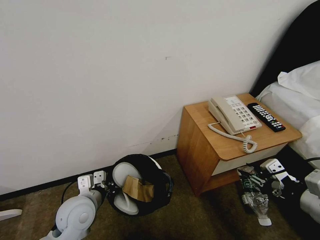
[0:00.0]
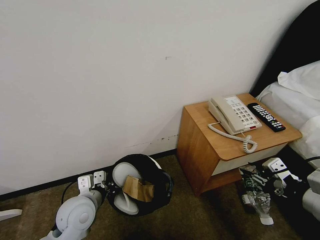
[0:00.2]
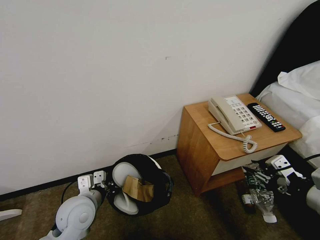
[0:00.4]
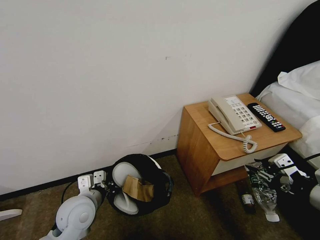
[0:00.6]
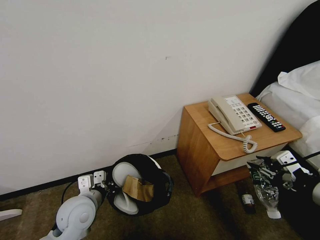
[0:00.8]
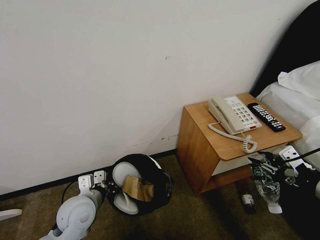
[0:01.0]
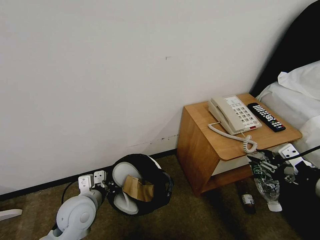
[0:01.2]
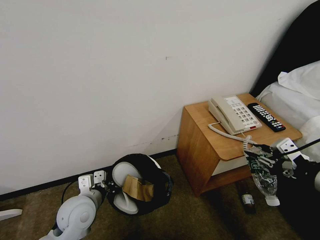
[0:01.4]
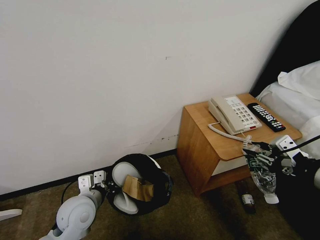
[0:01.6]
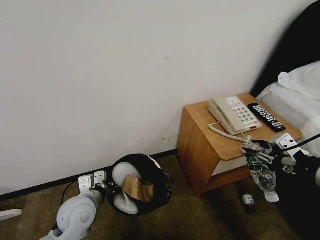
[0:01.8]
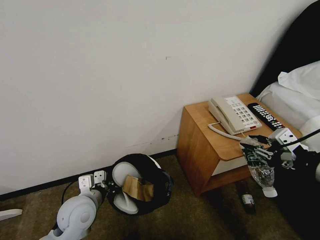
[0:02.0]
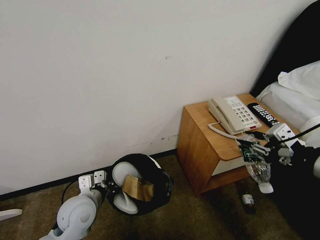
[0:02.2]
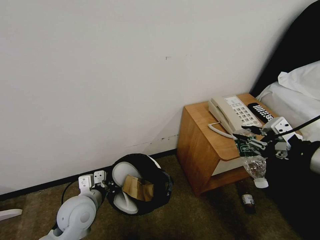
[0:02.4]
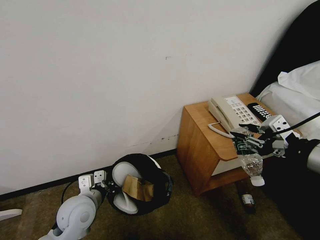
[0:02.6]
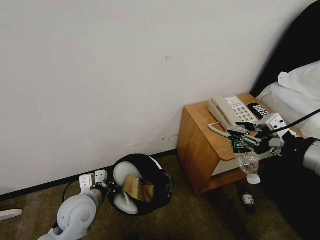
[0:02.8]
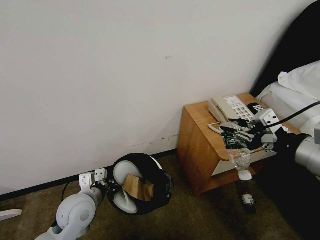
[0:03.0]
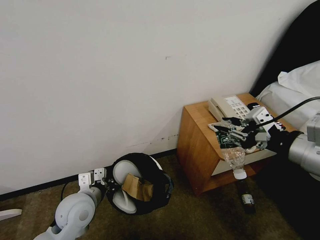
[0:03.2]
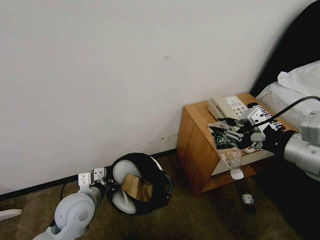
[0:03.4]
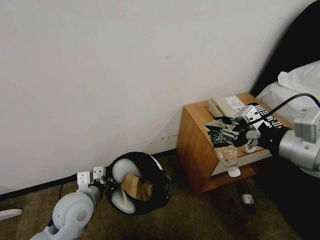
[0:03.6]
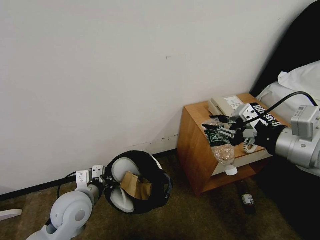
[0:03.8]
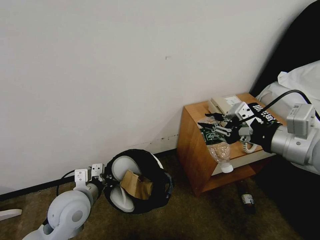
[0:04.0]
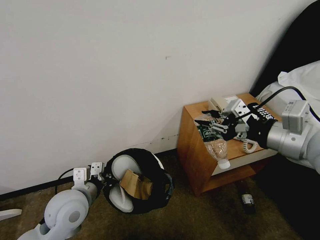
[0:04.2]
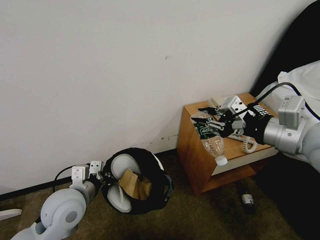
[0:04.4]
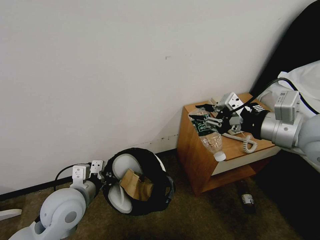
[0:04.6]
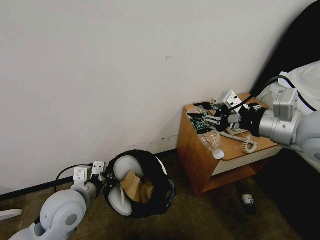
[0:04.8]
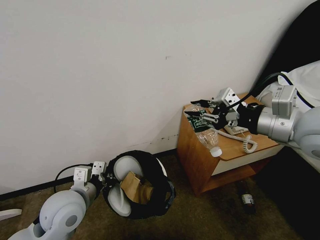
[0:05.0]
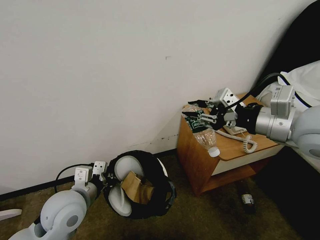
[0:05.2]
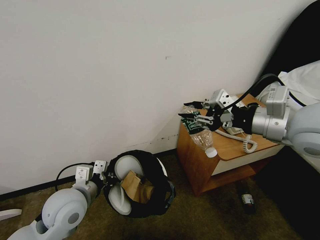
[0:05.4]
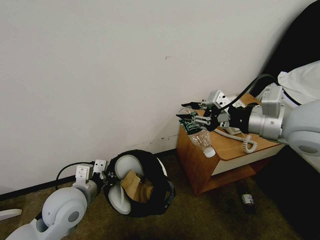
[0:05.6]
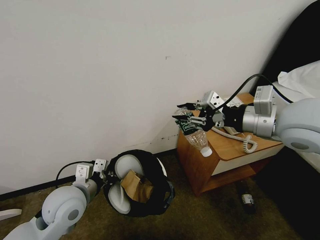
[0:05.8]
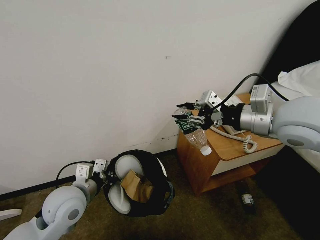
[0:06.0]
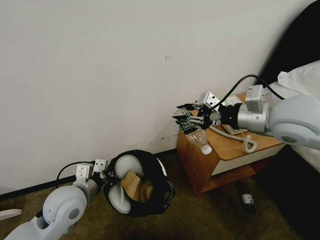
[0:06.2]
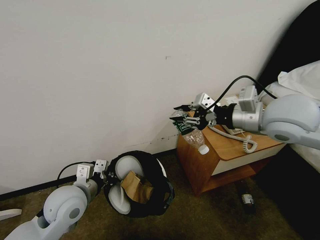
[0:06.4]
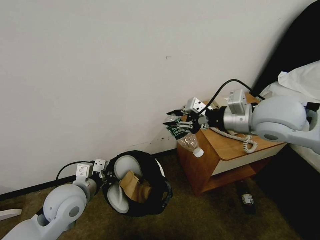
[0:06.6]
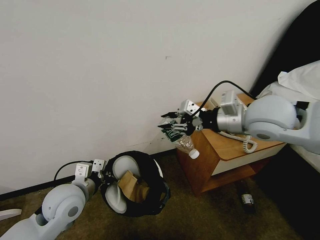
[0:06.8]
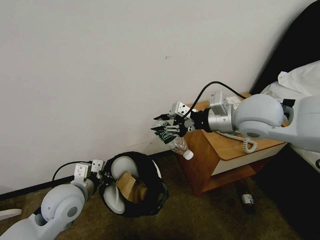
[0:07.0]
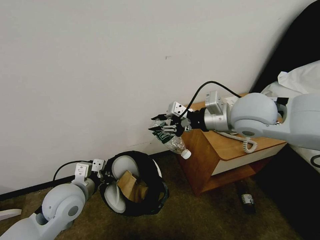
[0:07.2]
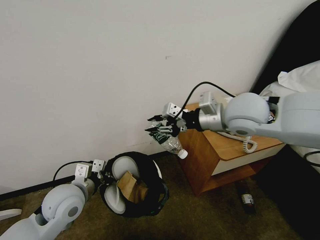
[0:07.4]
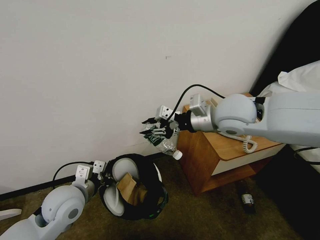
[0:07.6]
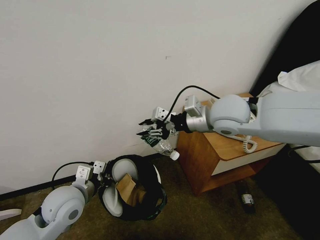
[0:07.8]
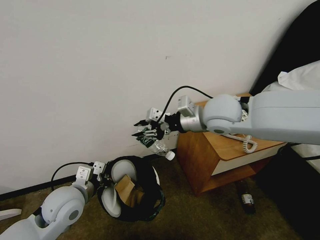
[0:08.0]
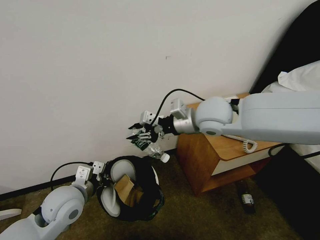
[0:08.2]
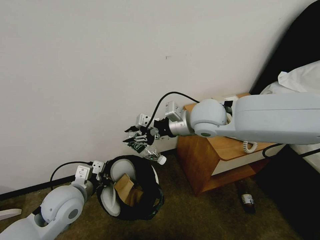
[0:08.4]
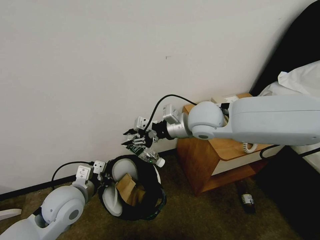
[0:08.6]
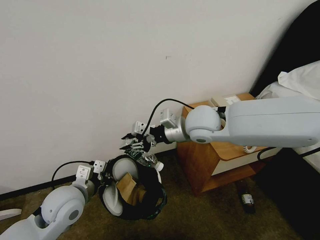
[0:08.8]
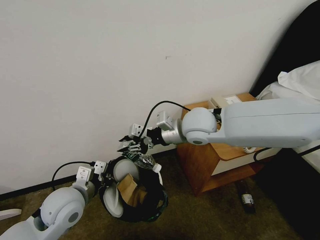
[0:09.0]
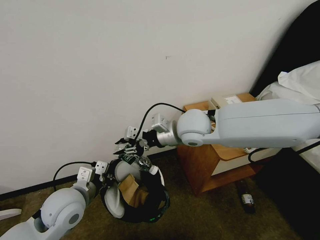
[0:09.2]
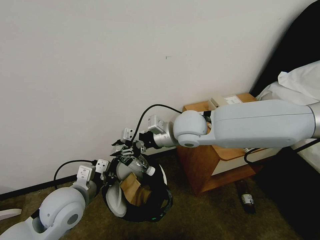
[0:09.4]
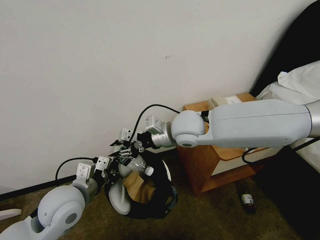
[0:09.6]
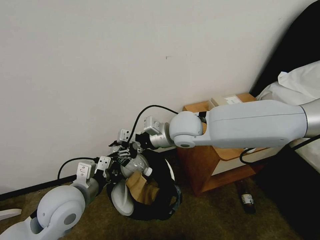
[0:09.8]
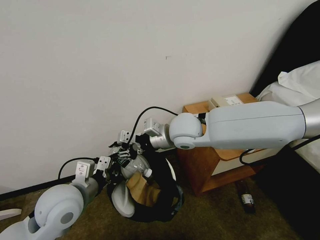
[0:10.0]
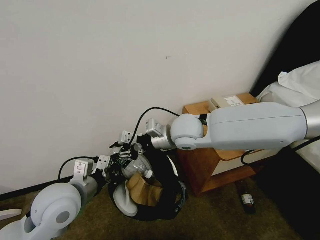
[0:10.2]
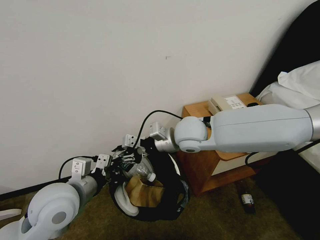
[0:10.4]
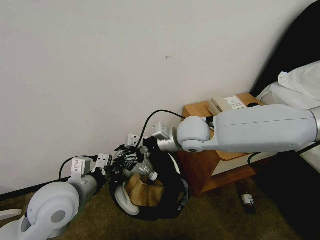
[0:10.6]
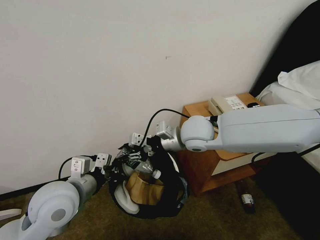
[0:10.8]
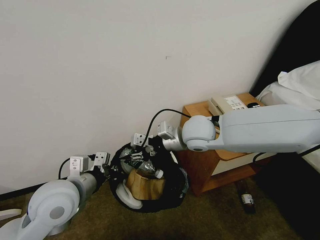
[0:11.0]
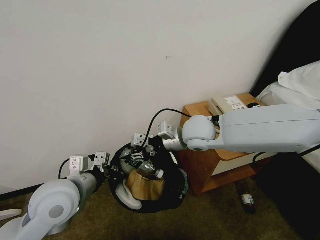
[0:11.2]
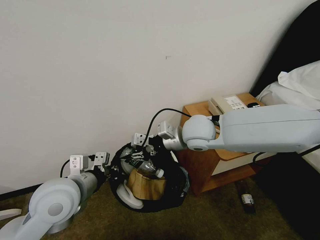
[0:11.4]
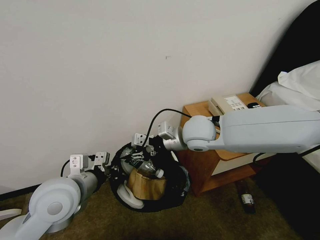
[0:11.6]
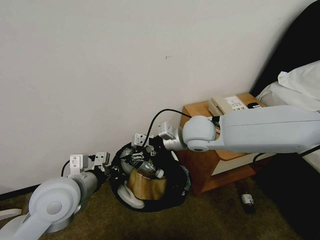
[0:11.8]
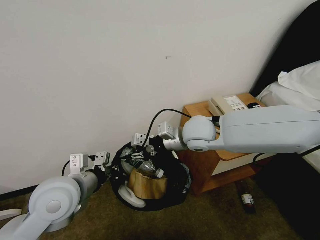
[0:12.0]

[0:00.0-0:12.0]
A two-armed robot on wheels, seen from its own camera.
Task of the whole recording: Pick up the trash bin, then pick up the garbage from the floor and place it into the trash bin.
0:00.0 to 0:01.6: The right gripper moves upward, some 5 cm.
0:01.6 to 0:03.0: The right gripper moves approximately 5 cm.
0:03.0 to 0:04.4: The left gripper shifts some 5 cm upward, while the right gripper shifts some 5 cm forward.
0:04.4 to 0:06.0: The right gripper travels forward by approximately 5 cm.
0:06.0 to 0:07.6: The right gripper heads to the left and forward, covering some 10 cm.
0:07.6 to 0:09.0: The right gripper shifts some 10 cm to the left.
0:09.0 to 0:10.4: The left gripper goes approximately 5 cm upward.
0:10.4 to 0:12.0: There are only small adjustments of the grippers.

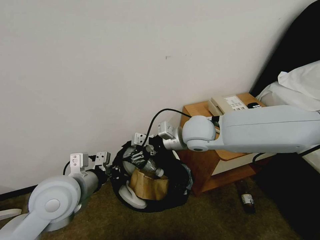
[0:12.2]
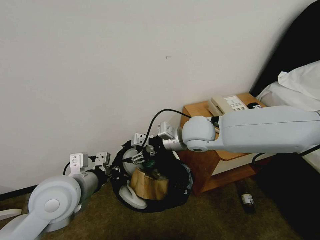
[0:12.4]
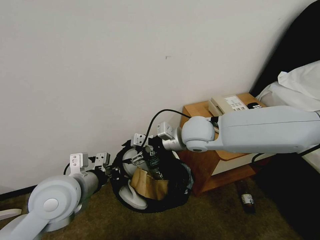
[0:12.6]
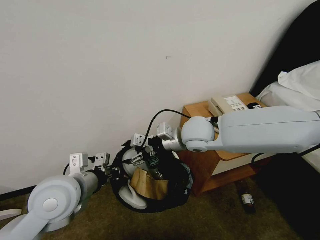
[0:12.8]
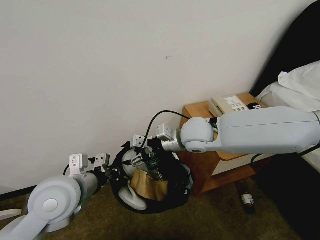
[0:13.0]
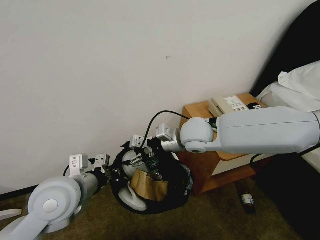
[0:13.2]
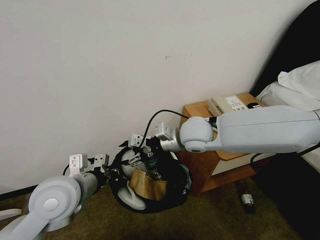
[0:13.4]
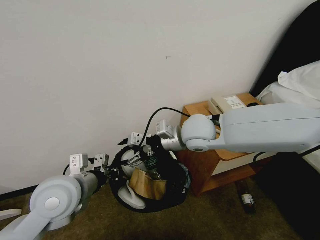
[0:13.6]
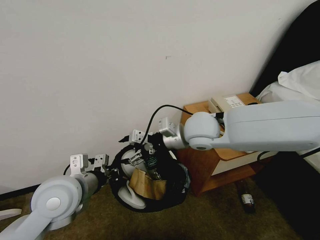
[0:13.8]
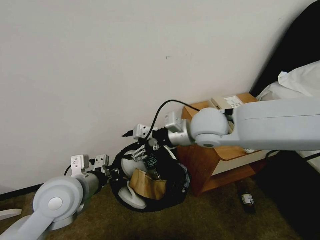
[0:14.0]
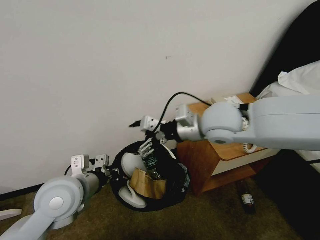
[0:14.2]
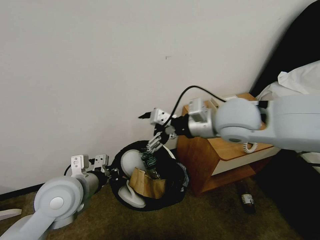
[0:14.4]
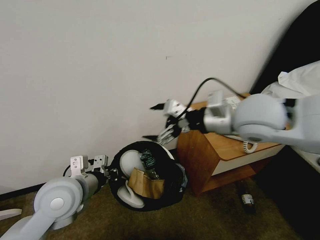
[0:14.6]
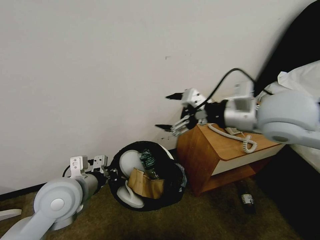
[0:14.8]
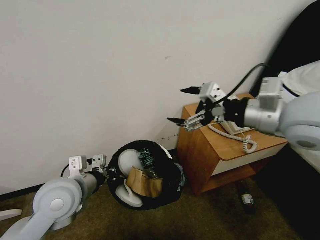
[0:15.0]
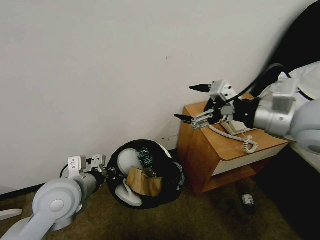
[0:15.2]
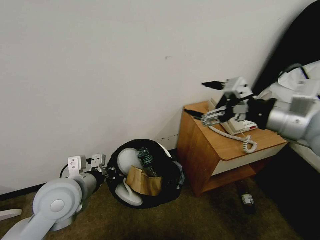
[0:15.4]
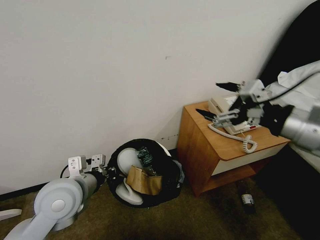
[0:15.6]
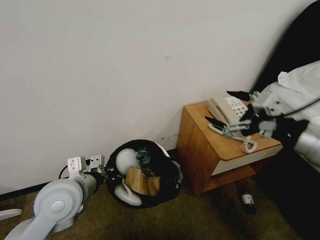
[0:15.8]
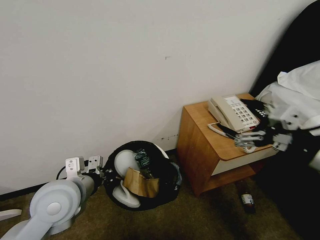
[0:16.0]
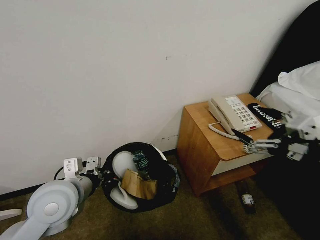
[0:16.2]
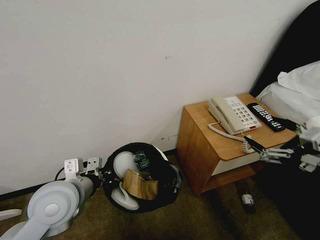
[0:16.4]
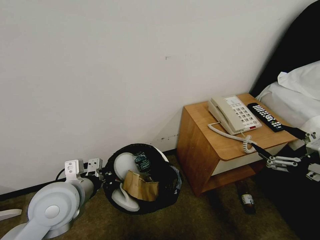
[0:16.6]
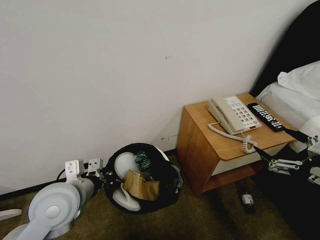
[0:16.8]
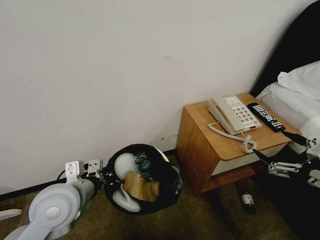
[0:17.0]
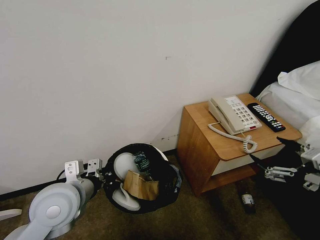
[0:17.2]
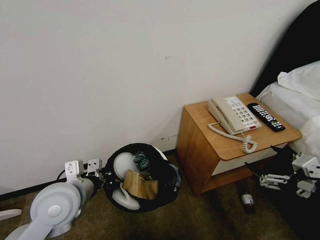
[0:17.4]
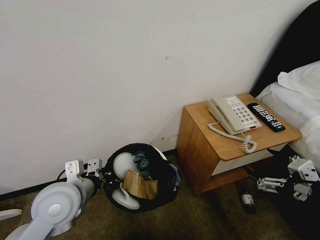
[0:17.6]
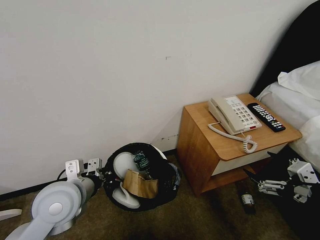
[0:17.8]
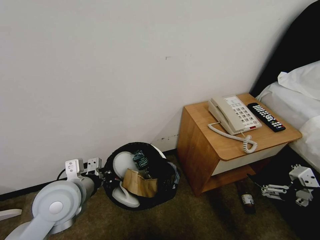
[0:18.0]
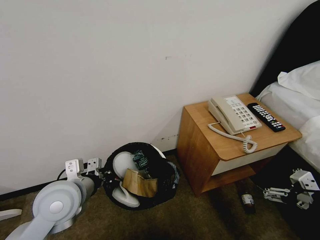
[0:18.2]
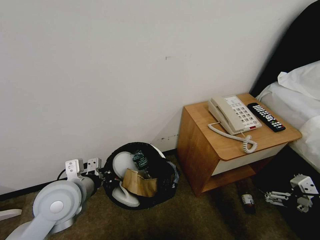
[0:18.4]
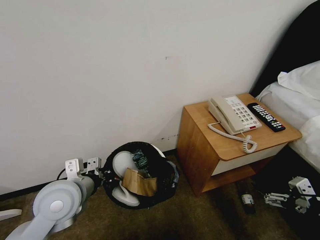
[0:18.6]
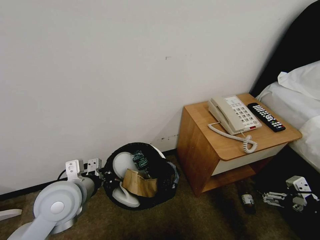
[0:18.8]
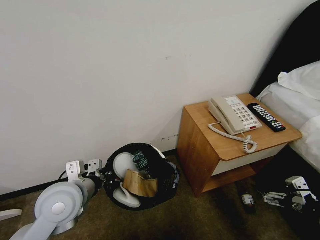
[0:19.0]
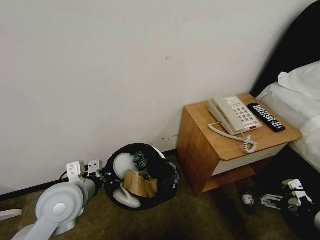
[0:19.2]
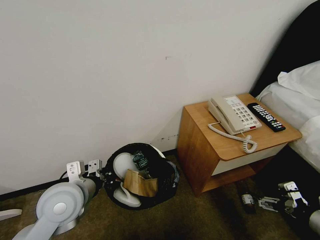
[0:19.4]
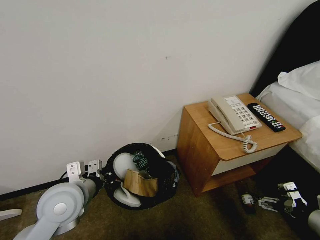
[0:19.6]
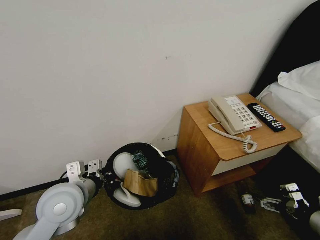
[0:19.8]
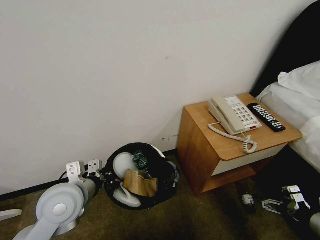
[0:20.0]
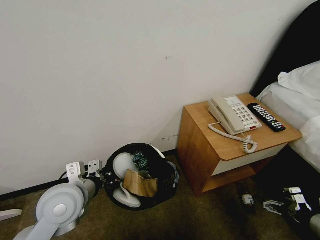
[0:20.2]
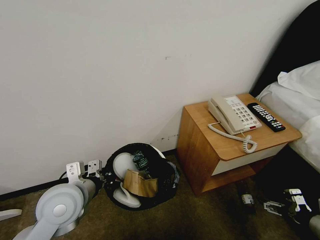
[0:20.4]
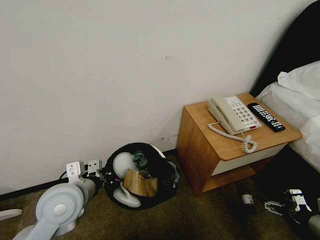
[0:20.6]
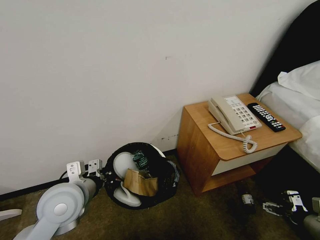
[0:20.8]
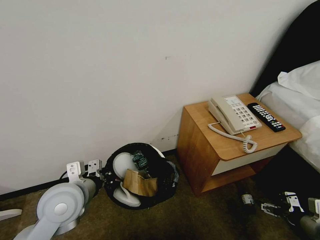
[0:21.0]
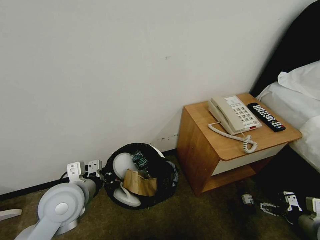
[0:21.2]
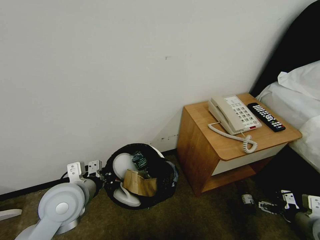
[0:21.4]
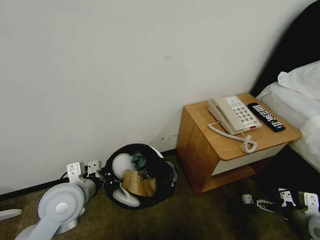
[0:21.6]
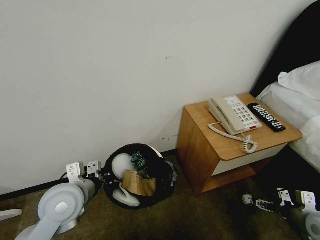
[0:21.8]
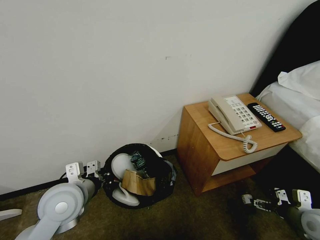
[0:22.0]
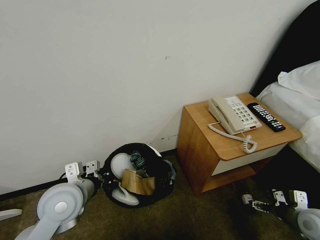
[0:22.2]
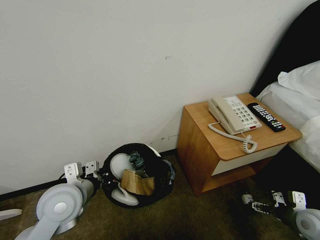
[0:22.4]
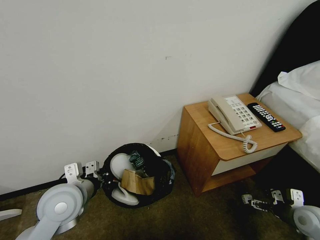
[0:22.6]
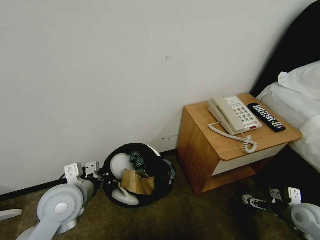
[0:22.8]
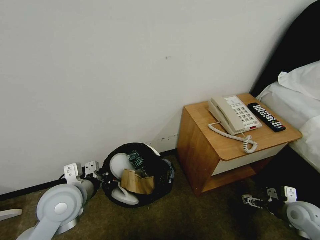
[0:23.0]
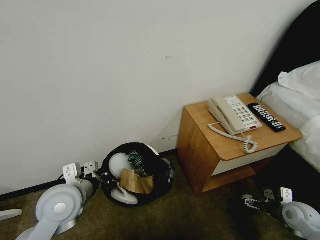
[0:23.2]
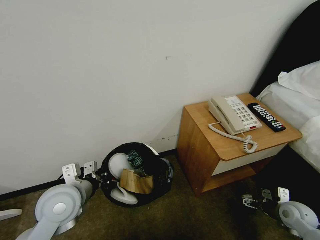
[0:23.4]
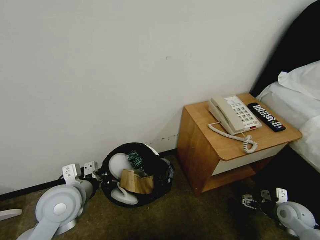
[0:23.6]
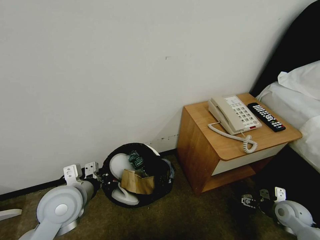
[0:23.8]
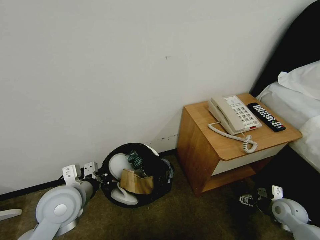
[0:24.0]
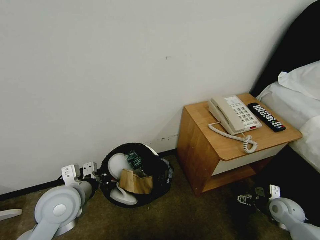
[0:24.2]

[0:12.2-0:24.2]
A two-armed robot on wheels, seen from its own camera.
Task of the whole recording: Pick up the trash bin, then pick up the garbage from the floor and place it into the trash bin.
0:12.2 to 0:13.8: The grippers stay close to where they were, moving slightly.
0:13.8 to 0:15.2: The right gripper is displaced to the right, upward and backward by some 20 cm.
0:15.2 to 0:16.6: The right gripper travels backward, to the right and downward by about 25 cm.
0:16.6 to 0:18.2: The right gripper shifts roughly 10 cm downward.
0:18.2 to 0:19.8: The right gripper goes about 5 cm downward.
0:19.8 to 0:21.2: The right gripper goes some 5 cm downward.
0:21.2 to 0:22.6: The right gripper is displaced forward and downward by about 10 cm.
0:22.6 to 0:24.2: The right gripper heads downward and forward, covering about 10 cm.
